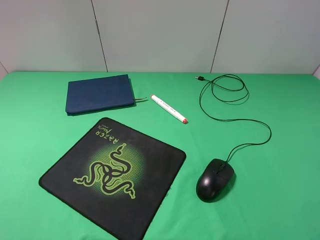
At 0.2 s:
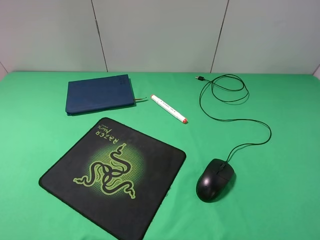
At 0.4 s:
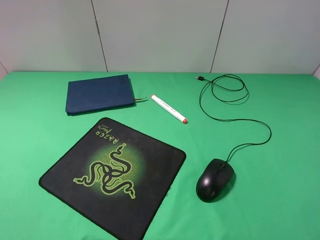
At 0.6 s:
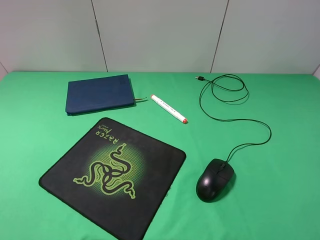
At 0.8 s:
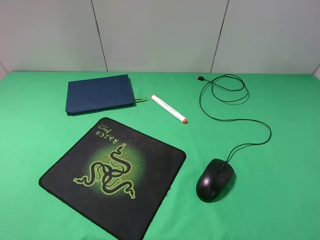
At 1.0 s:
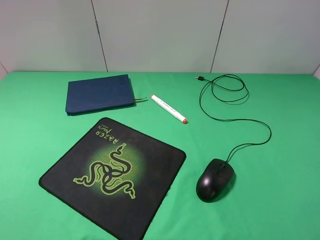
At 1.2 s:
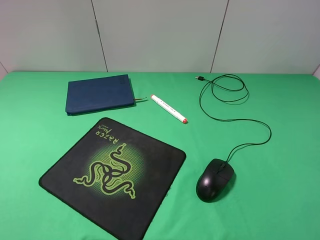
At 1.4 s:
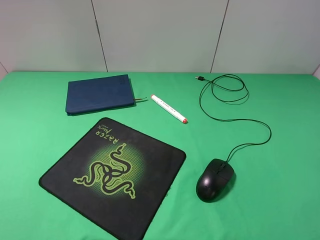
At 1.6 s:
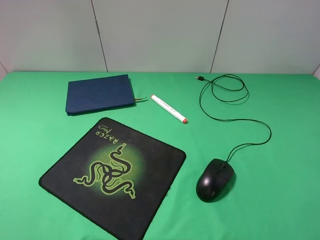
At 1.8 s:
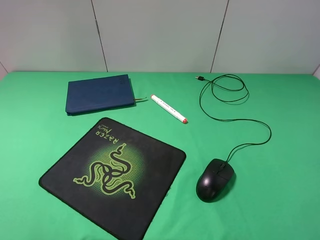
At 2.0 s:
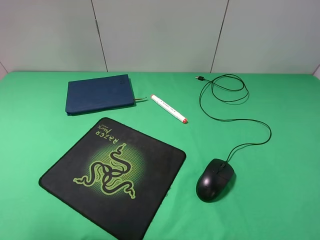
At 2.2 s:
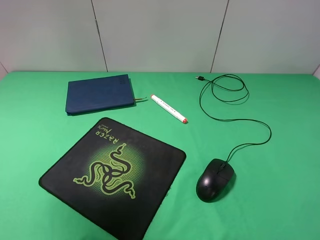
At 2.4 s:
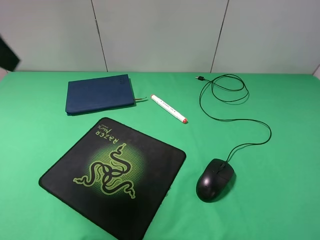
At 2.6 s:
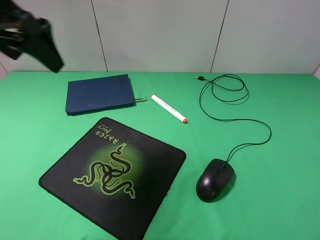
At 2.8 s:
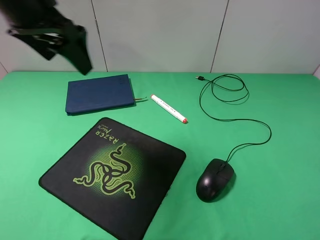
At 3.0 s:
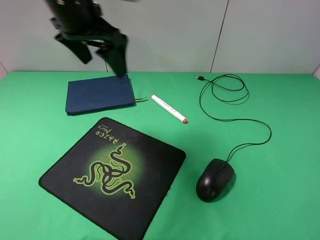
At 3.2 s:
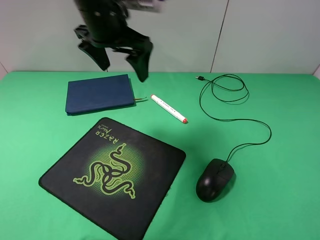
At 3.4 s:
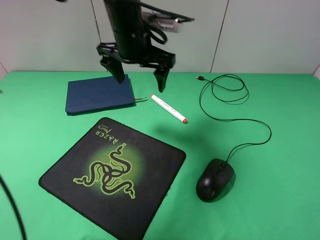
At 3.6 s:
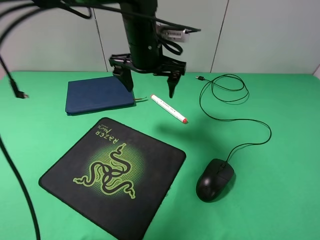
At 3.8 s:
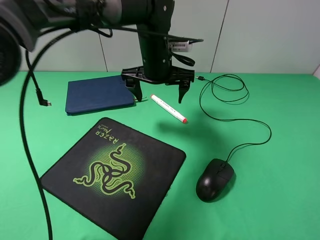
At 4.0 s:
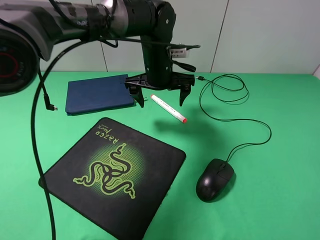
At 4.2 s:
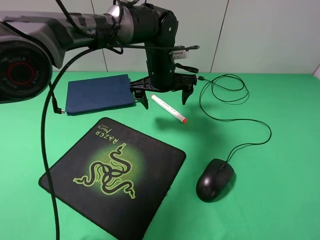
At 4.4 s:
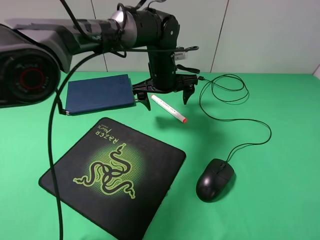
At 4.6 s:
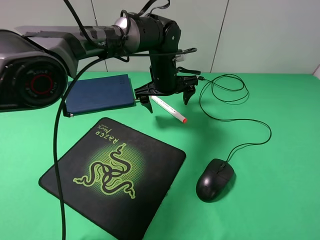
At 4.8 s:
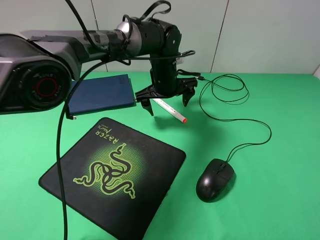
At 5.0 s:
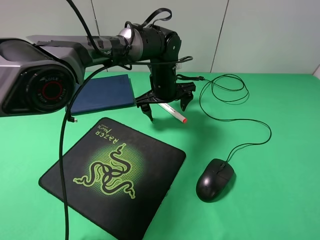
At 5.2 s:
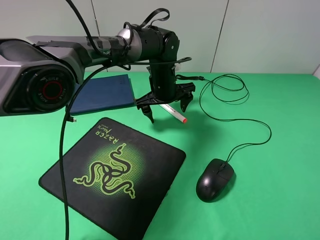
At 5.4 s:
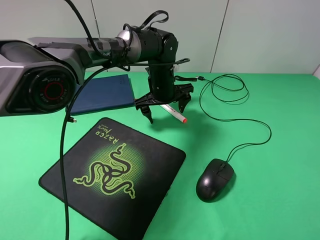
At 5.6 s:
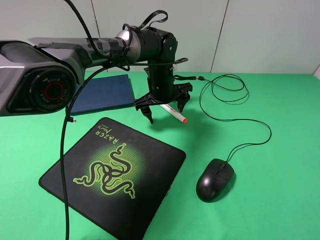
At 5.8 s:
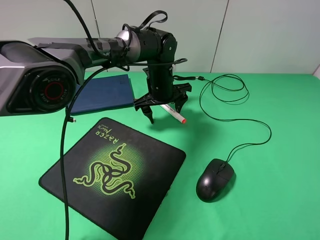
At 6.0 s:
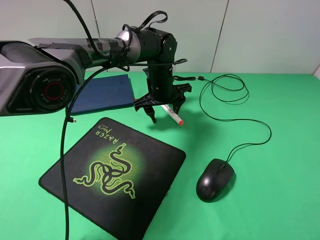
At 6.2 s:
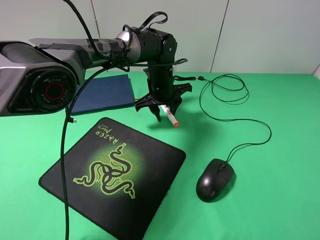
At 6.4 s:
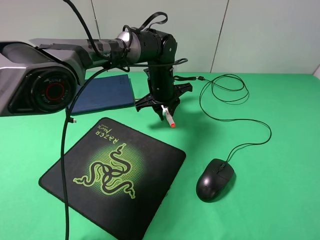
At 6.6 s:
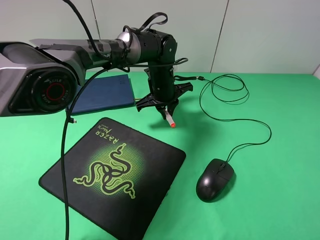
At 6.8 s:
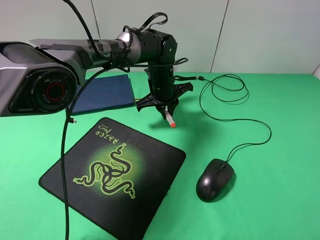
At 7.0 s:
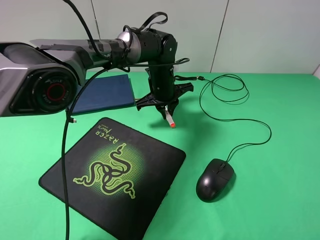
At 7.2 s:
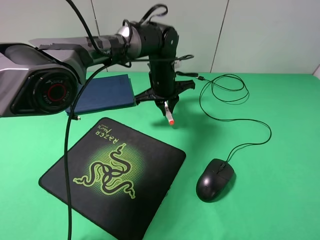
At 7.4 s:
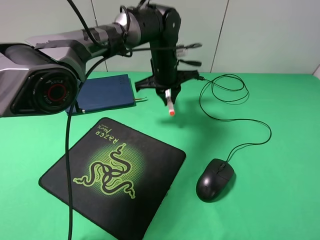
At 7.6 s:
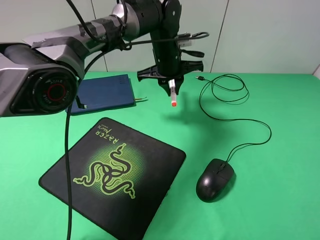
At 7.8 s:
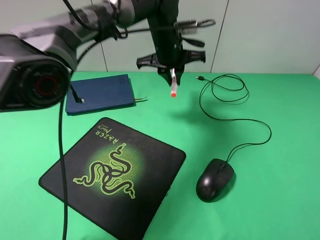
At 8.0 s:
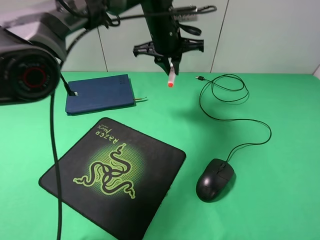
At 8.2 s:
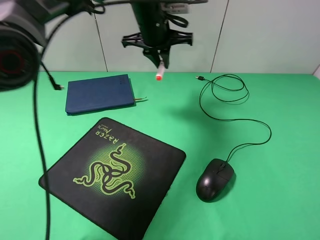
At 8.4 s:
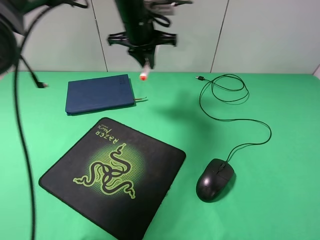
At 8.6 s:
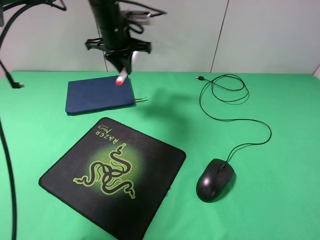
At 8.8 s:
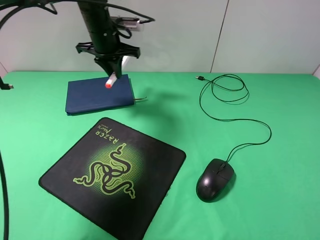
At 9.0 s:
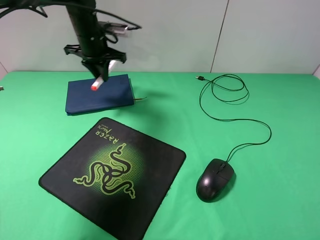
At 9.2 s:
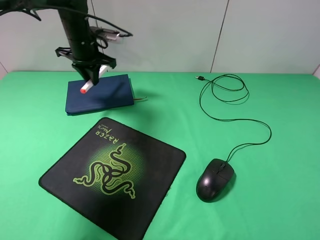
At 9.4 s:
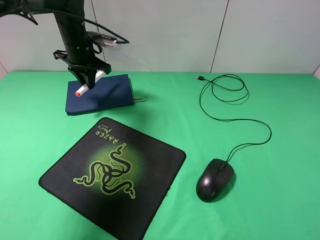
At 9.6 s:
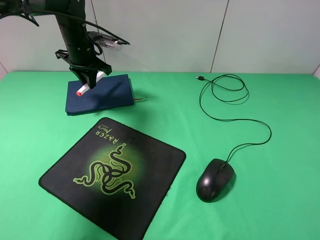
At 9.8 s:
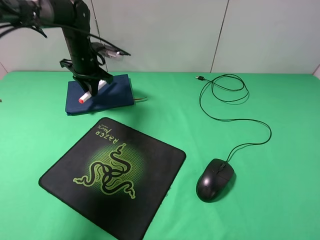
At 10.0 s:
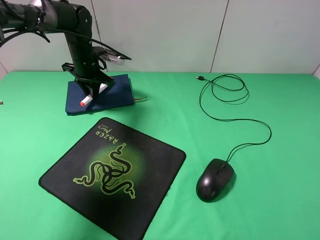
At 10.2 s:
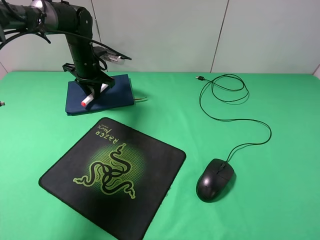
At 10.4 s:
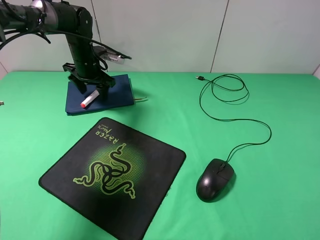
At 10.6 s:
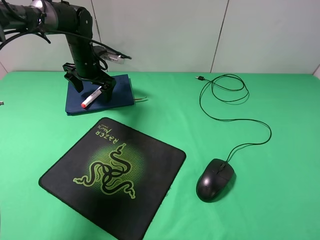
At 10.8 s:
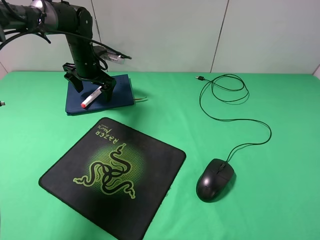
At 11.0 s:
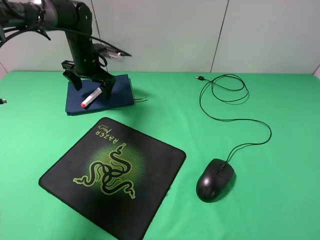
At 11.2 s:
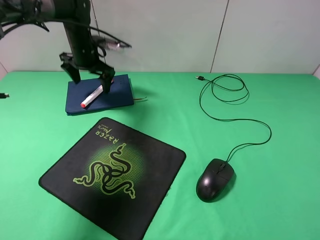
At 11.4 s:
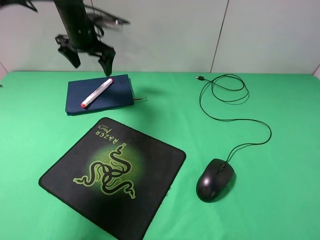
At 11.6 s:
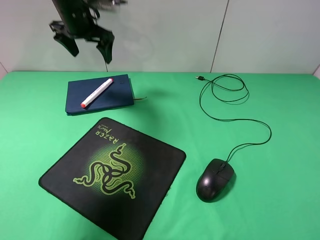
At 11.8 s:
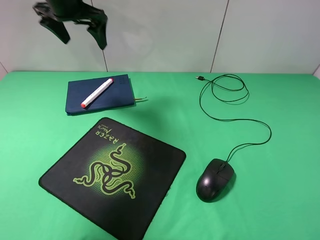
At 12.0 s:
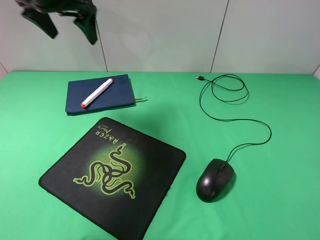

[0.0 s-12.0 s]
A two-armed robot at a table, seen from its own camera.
Step, 0.0 to 6.4 s: Grasp the marker with the left gripper.
Step, 6.6 to 10.6 s: Place the marker on the notebook with the left gripper.
1.6 to 3.0 s: The left gripper shifts approximately 35 cm forward and to the right.
3.0 to 4.4 s: The left gripper travels downward, to the right and forward by about 25 cm.
6.0 to 7.6 s: The left gripper heads upward, covering roughly 5 cm, and closes.
7.6 to 9.0 s: The left gripper is displaced to the left by some 20 cm.
9.0 to 10.4 s: The left gripper shifts some 5 cm downward, and opens up.
10.4 to 12.0 s: The left gripper goes about 20 cm upward, and opens up.

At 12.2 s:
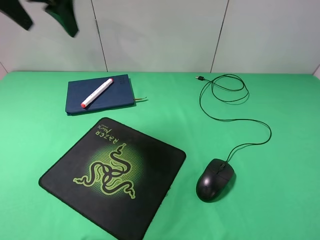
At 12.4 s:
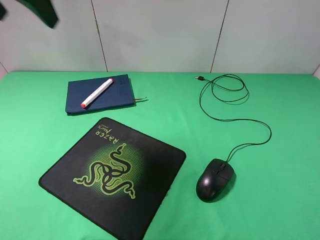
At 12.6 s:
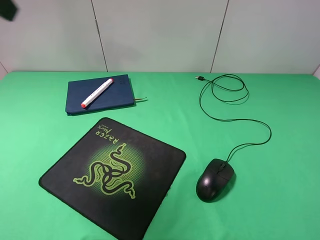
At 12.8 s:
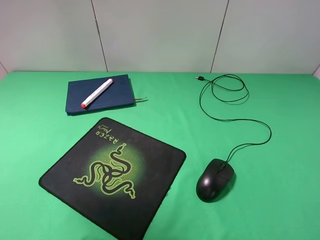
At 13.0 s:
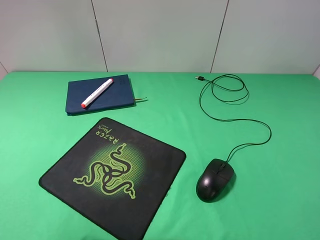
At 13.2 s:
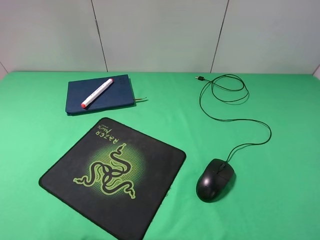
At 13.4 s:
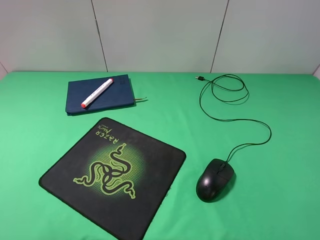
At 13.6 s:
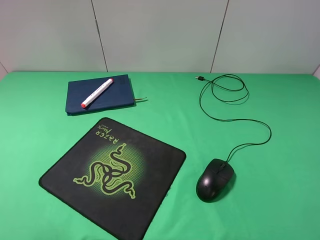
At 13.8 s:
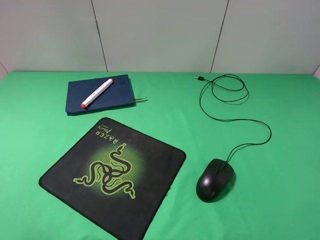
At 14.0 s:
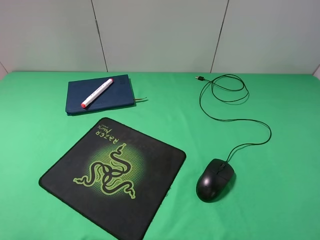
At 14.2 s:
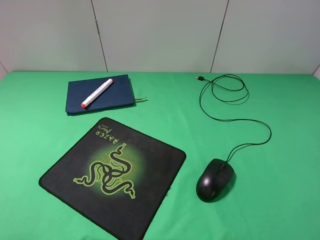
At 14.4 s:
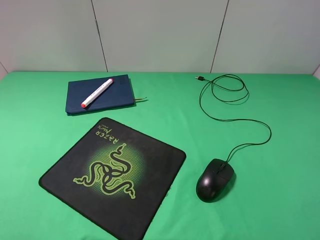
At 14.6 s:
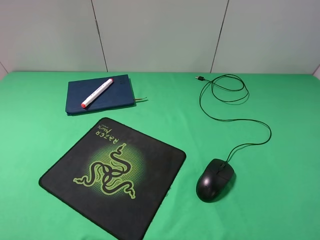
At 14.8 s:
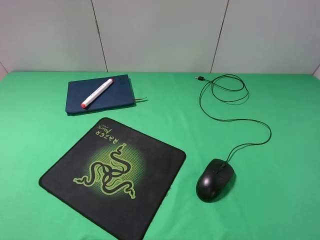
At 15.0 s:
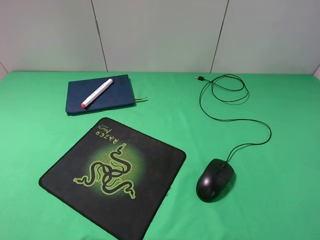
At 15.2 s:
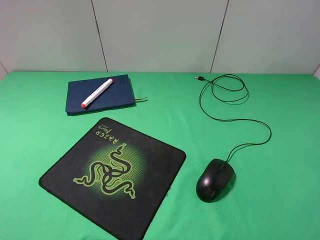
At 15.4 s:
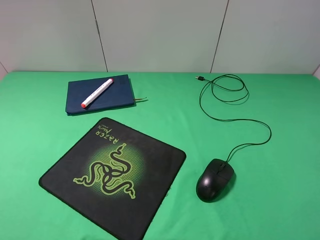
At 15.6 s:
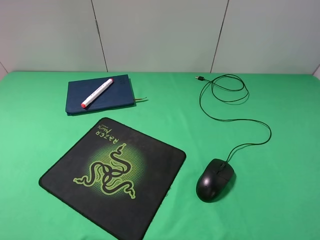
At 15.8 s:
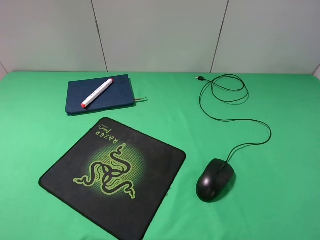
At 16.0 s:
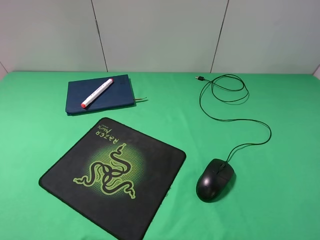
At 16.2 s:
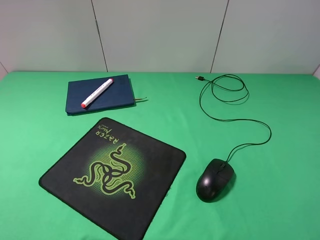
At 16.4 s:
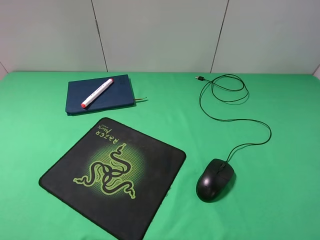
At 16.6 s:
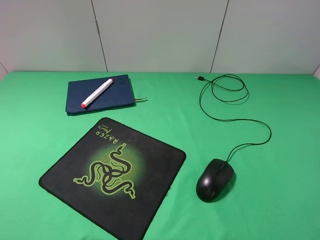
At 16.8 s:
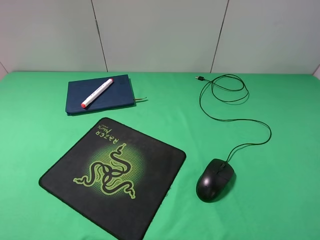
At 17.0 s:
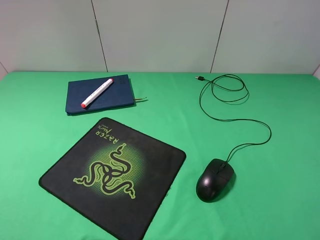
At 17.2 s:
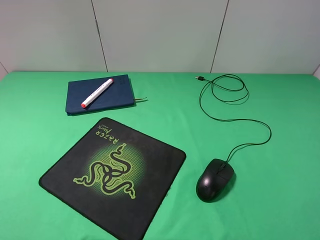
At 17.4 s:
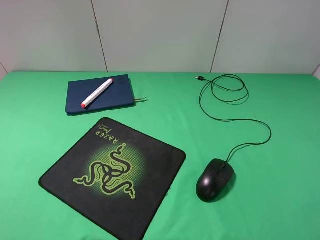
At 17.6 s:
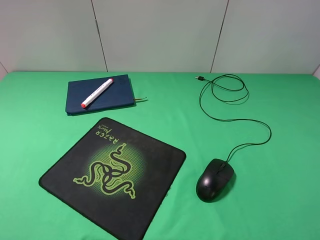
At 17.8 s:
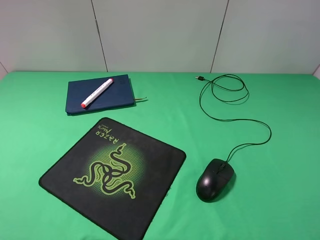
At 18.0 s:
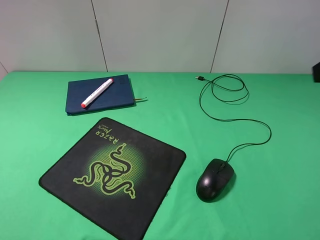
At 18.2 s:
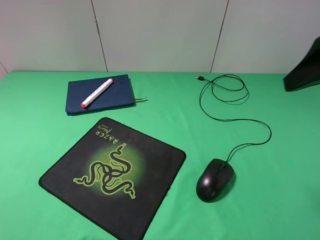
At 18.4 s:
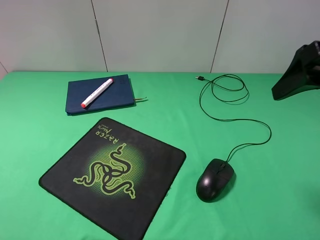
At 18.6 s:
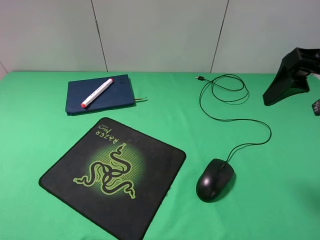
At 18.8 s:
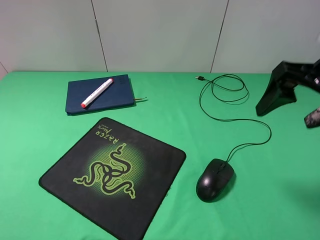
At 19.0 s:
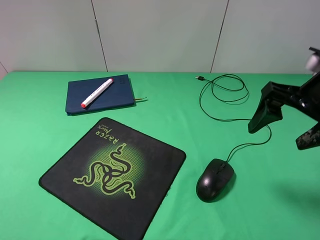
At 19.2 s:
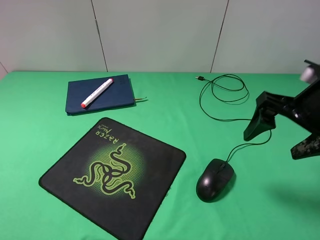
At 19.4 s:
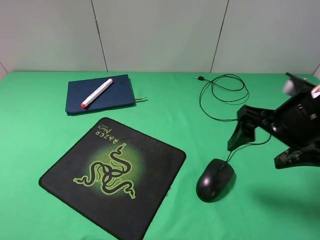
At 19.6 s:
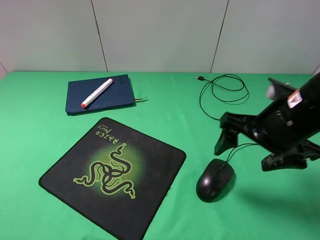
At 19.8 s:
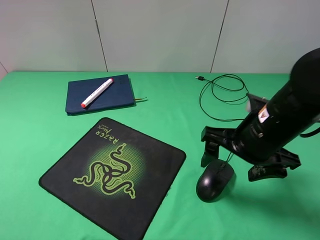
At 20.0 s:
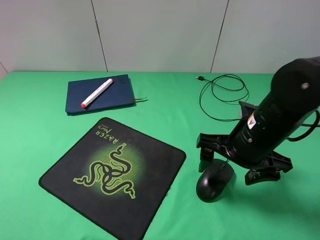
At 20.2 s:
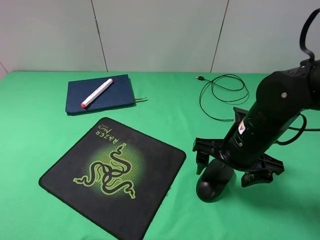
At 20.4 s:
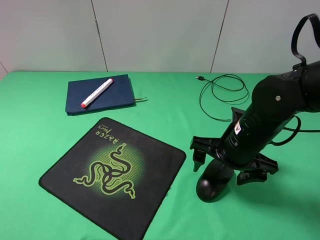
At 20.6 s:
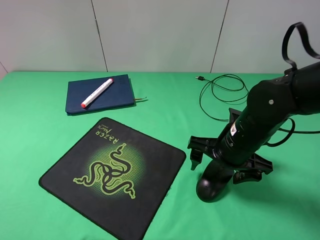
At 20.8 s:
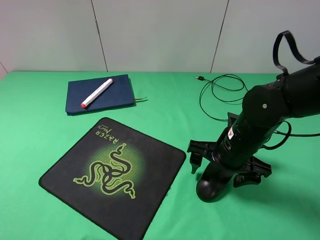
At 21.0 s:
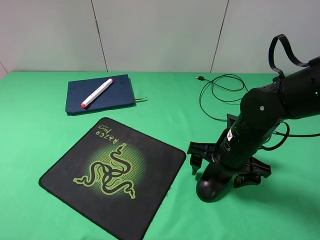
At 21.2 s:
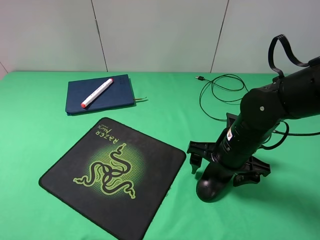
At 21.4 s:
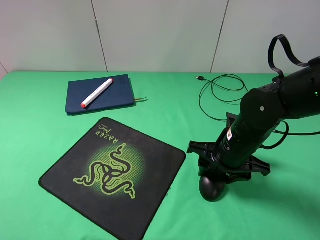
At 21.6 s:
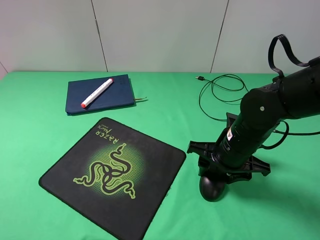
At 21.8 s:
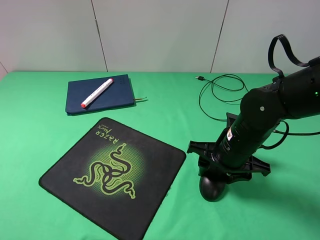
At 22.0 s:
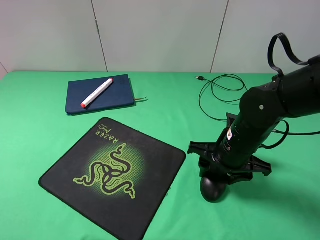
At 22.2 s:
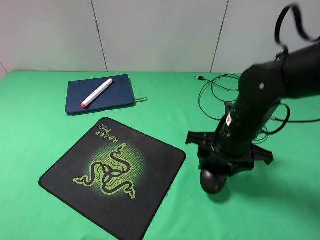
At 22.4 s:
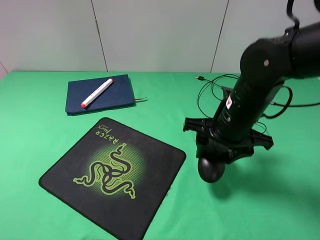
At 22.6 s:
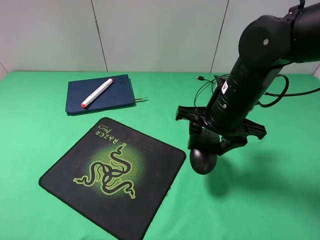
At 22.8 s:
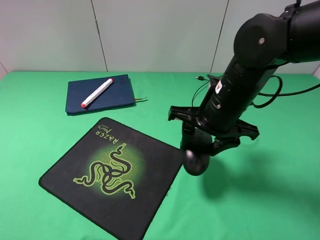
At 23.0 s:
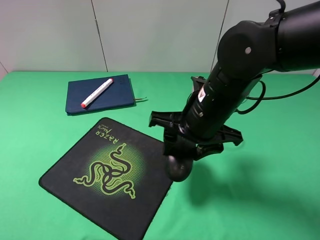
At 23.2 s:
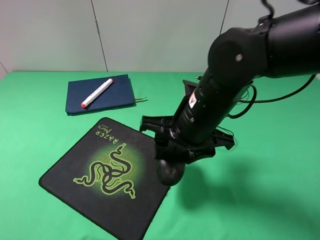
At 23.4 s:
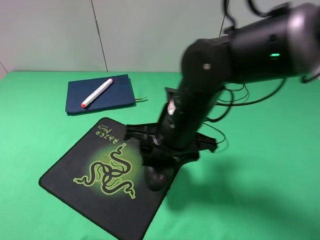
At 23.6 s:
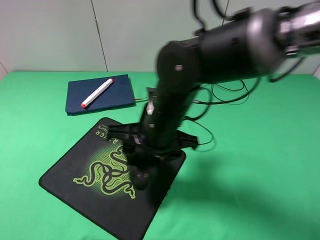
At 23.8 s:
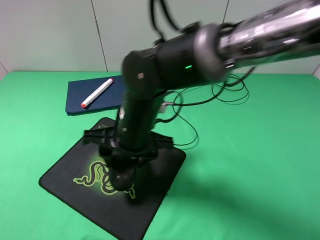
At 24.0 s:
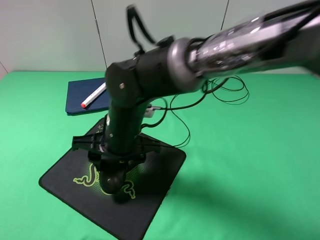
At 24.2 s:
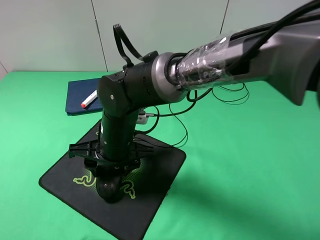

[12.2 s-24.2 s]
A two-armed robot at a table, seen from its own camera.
Step, 12.2 to 21.8 s: Grasp the mouse with the right gripper.
12.2 to 13.8 s: The left gripper shifts roughly 30 cm backward.
15.2 to 16.6 s: Both grippers stay put.
16.6 to 18.2 s: The right gripper shifts roughly 15 cm forward and upward.
18.2 to 19.8 s: The right gripper travels downward and to the left by about 20 cm.
19.8 to 21.2 s: The right gripper moves downward, approximately 10 cm.
21.2 to 22.6 s: The right gripper heads upward, covering roughly 5 cm, and closes.
22.6 to 24.2 s: The right gripper goes roughly 20 cm to the left.
